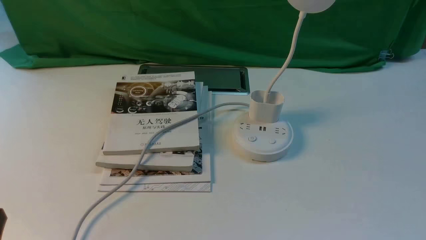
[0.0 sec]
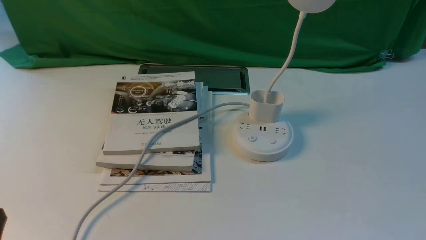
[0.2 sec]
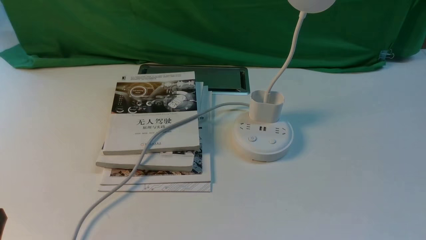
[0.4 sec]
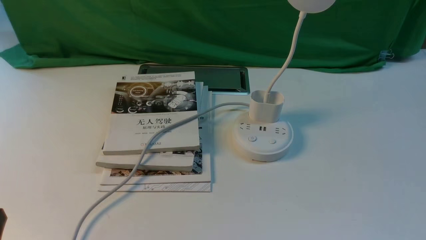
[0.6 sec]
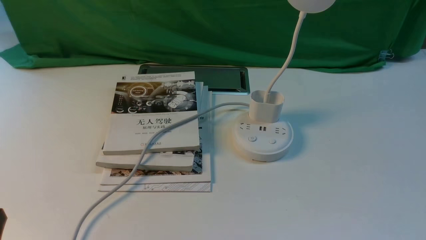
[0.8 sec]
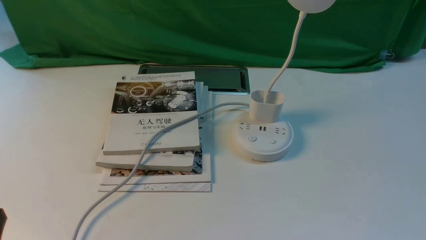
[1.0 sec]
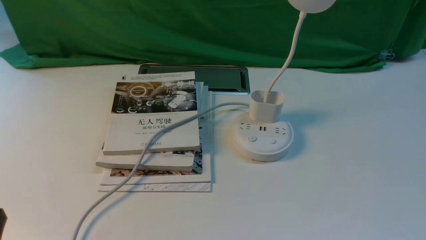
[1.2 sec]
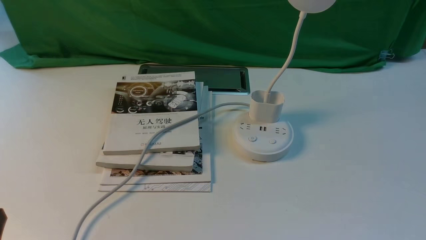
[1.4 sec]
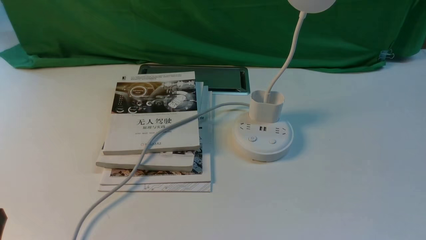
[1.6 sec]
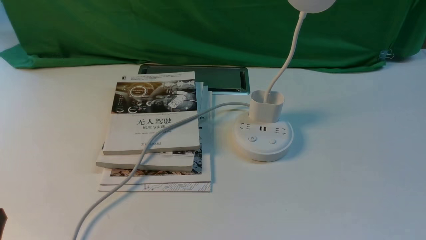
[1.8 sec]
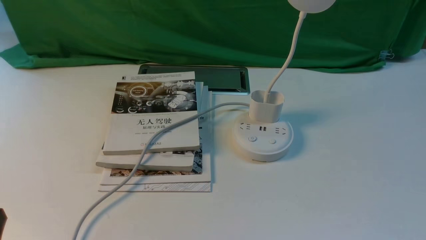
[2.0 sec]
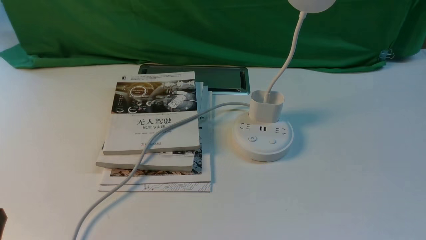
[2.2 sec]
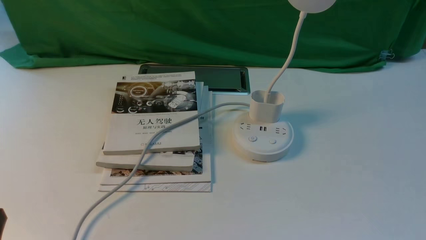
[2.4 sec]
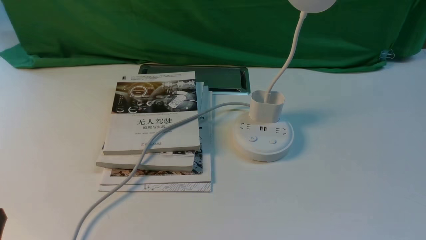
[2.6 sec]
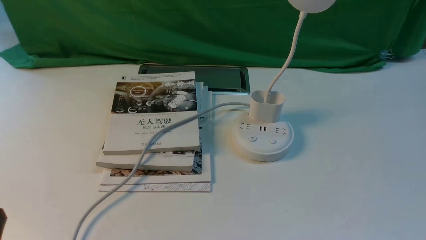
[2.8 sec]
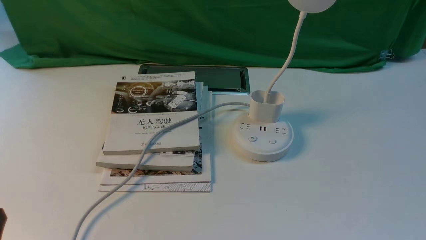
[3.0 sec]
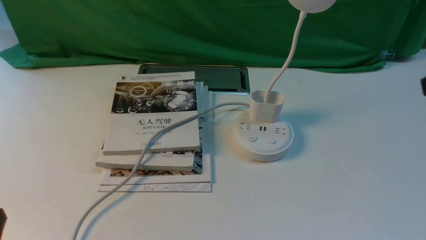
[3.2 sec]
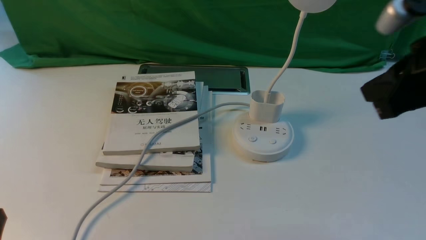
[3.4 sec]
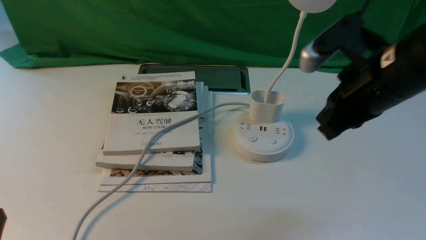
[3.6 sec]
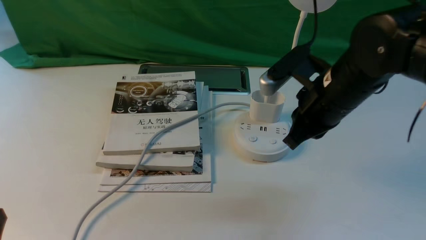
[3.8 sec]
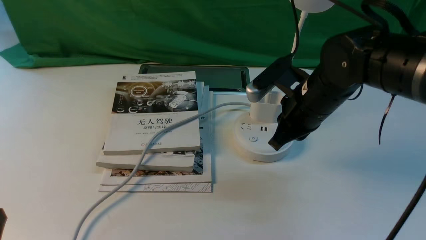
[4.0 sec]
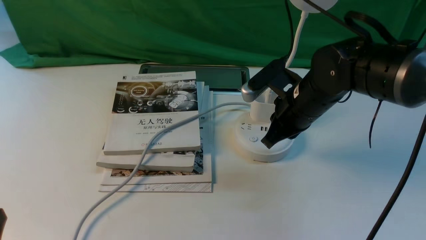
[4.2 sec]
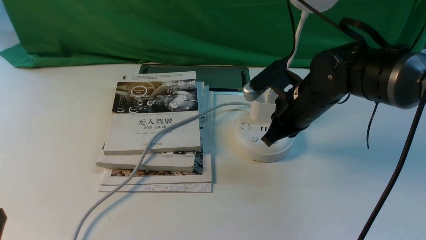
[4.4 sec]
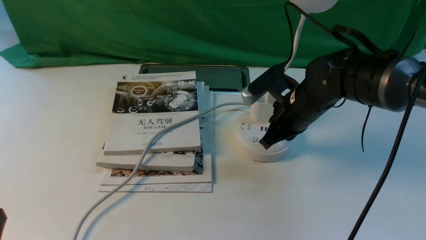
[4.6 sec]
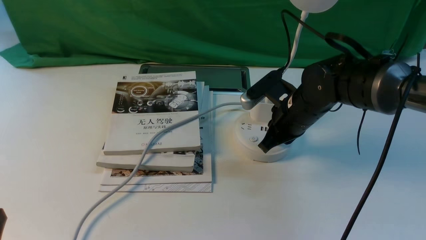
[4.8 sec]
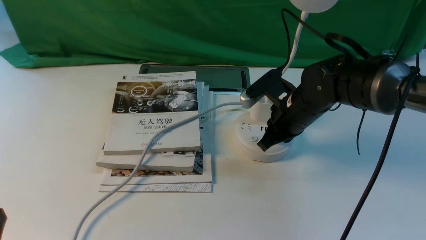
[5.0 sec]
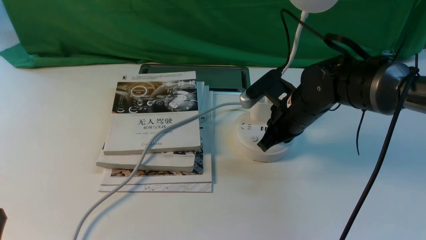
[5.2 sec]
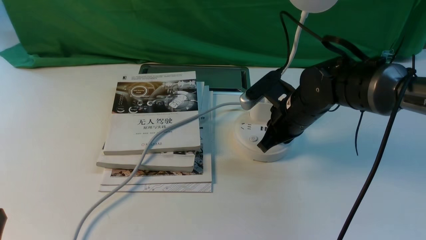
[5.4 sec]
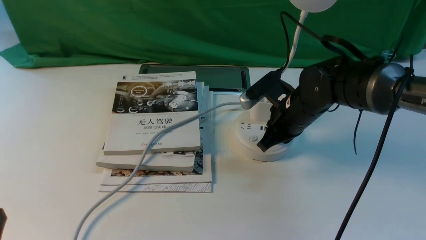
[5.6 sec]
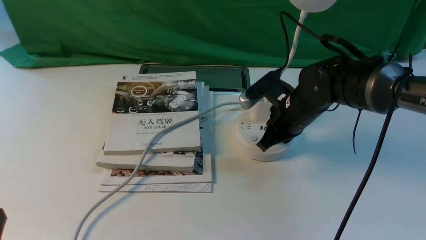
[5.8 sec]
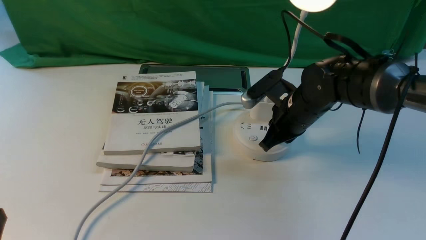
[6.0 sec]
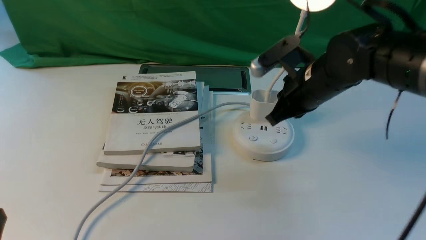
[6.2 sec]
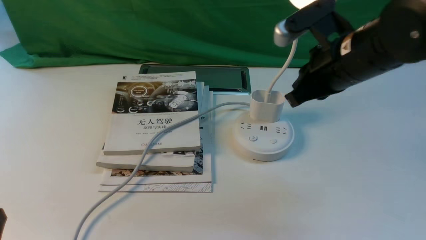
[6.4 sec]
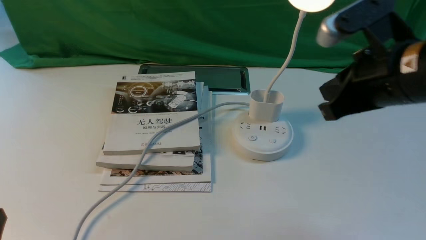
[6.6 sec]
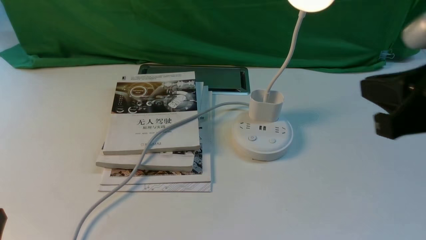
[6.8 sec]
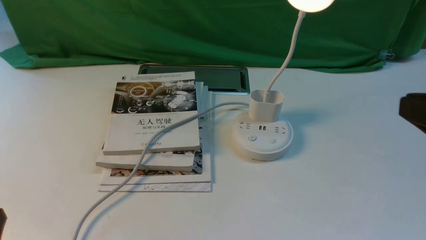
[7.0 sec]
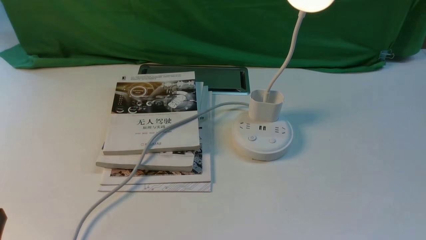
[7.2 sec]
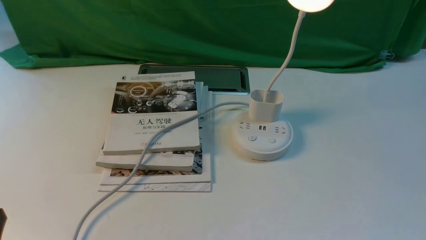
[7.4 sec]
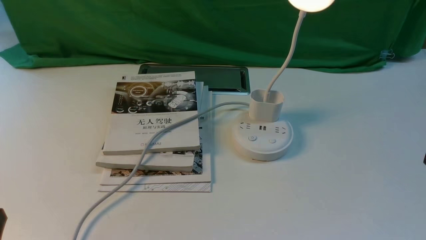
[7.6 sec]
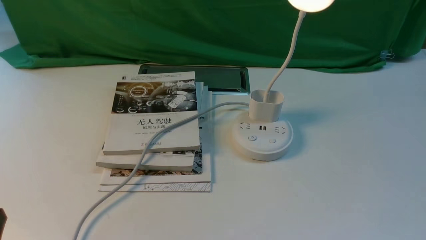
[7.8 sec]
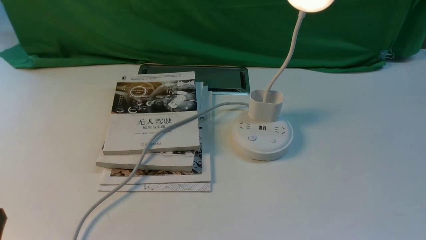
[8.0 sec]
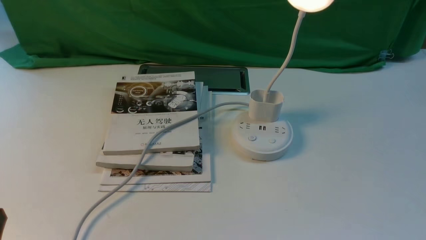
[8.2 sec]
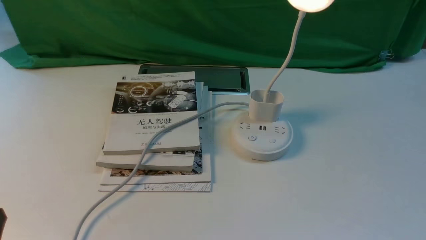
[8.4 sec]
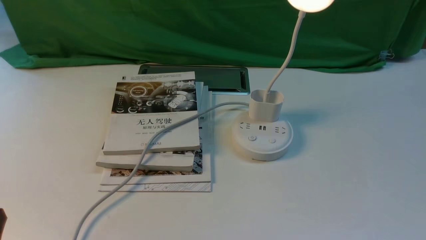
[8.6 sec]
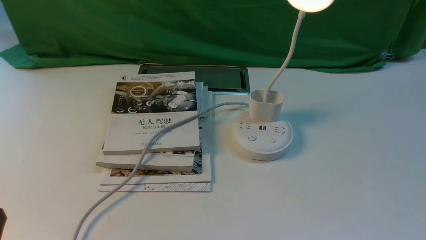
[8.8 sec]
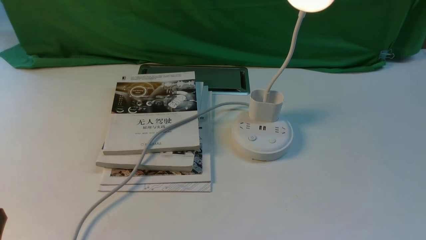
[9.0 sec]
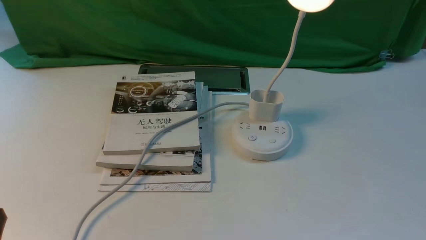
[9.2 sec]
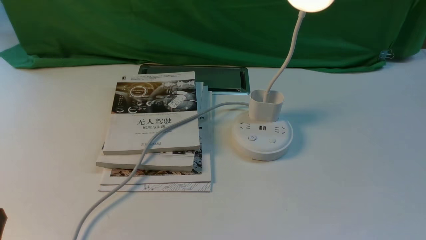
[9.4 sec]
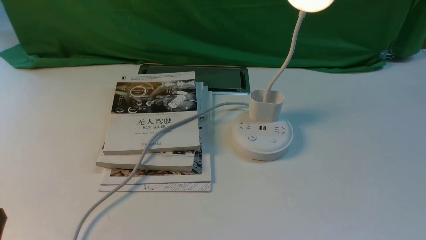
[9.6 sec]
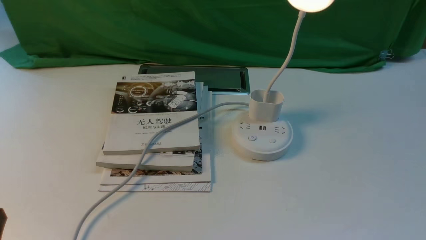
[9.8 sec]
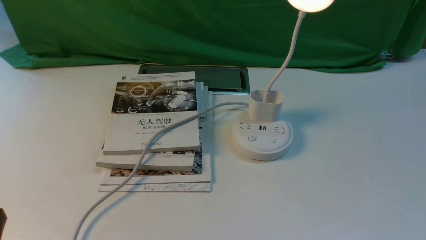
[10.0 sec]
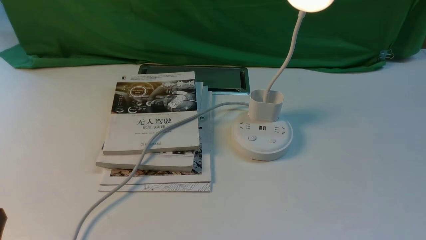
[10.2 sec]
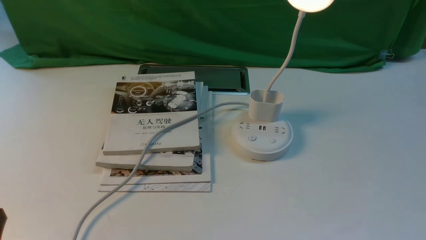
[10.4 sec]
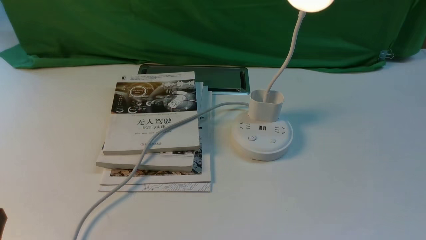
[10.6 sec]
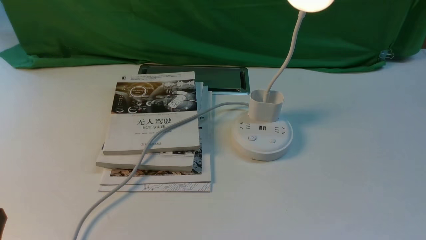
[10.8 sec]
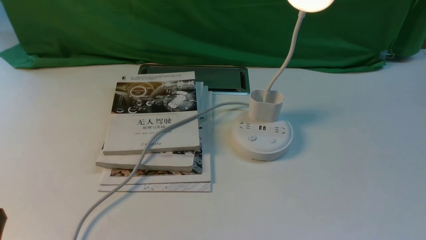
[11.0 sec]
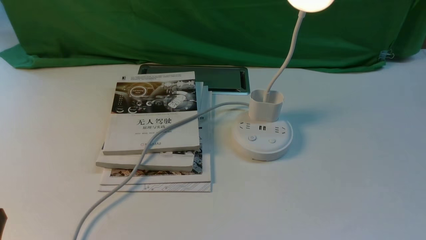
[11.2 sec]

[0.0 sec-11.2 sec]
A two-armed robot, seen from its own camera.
Step, 0.0 sec to 6.2 sec: use the right arm to press the button switch on the lamp holder.
0.0 sec to 1.6 sec: Neither gripper changes place.
3.2 sec to 4.8 sec: The right gripper shifts approximately 30 cm downward, forward and to the left.
4.8 sec to 6.4 sec: The right gripper moves upward and backward, roughly 15 cm.
6.4 sec to 8.0 sec: The right gripper heads backward and to the right, covering approximately 30 cm, and opens.
9.6 sec to 11.2 sec: Neither gripper changes place.
